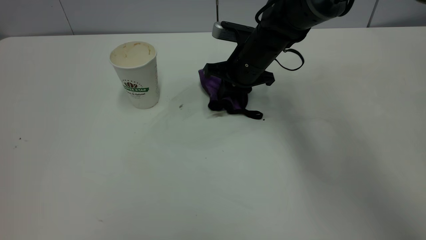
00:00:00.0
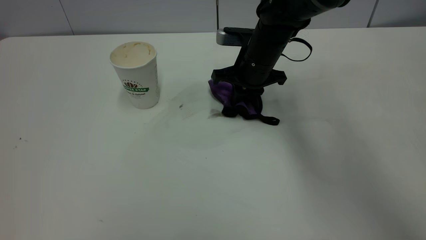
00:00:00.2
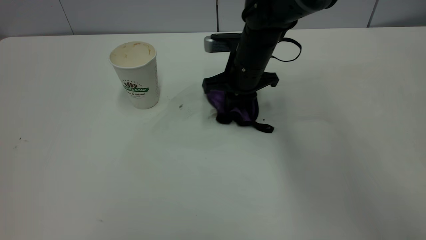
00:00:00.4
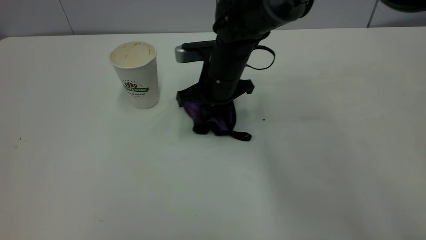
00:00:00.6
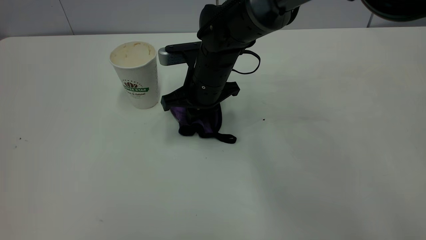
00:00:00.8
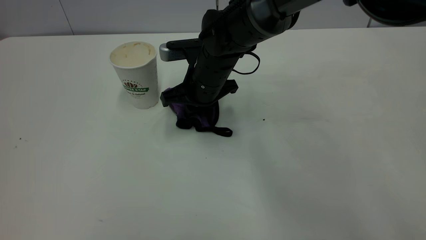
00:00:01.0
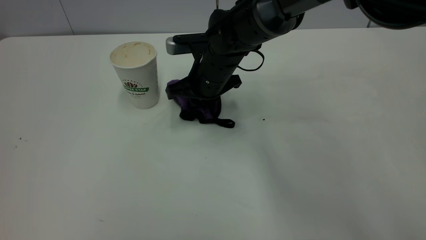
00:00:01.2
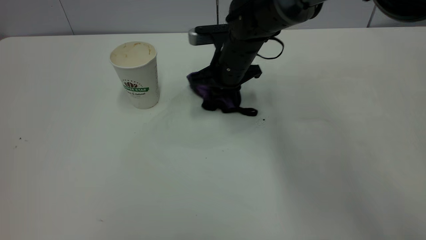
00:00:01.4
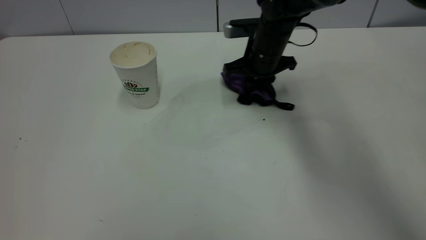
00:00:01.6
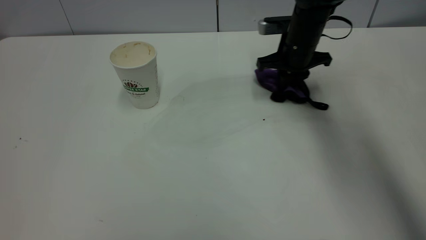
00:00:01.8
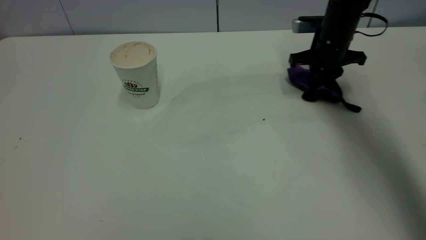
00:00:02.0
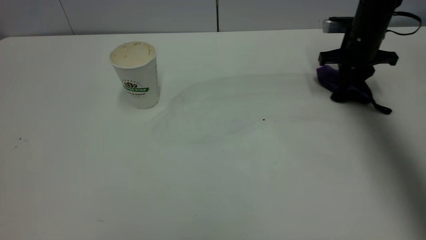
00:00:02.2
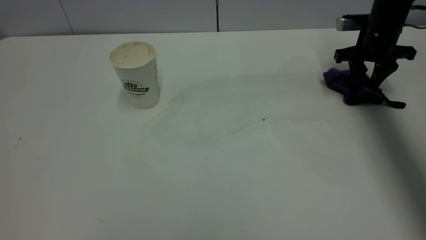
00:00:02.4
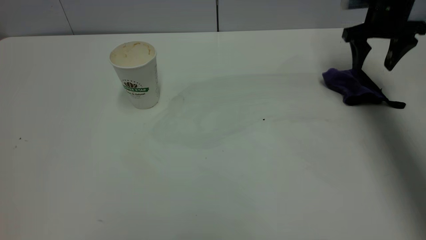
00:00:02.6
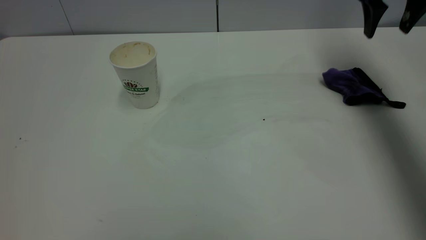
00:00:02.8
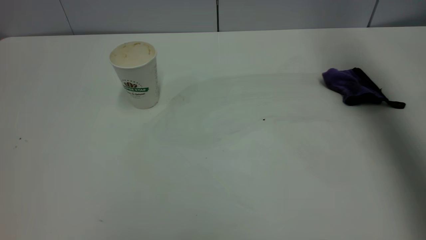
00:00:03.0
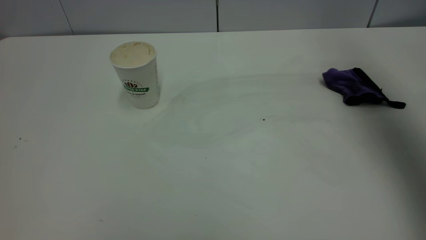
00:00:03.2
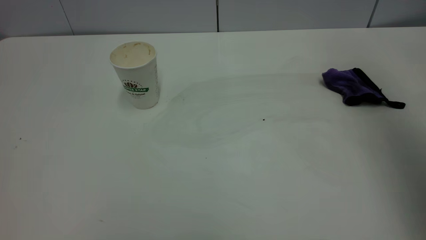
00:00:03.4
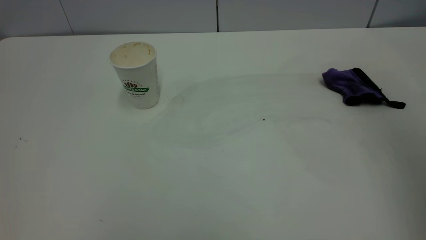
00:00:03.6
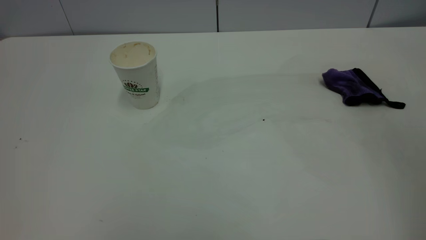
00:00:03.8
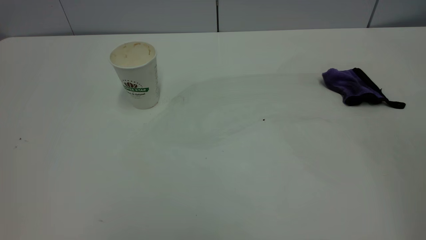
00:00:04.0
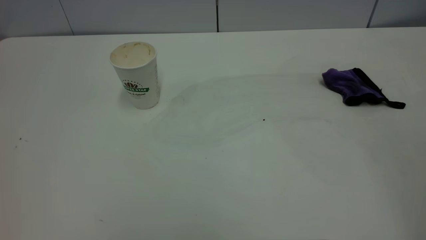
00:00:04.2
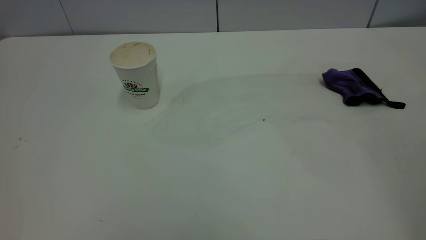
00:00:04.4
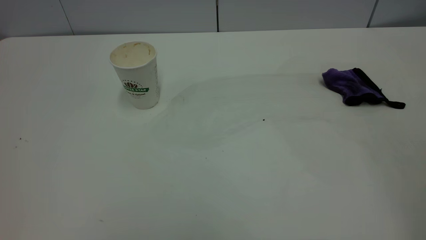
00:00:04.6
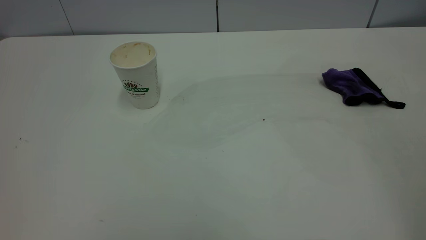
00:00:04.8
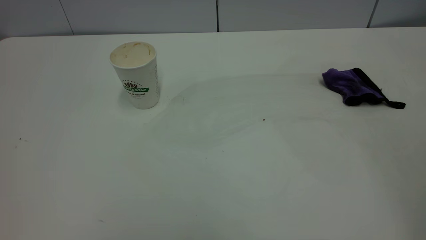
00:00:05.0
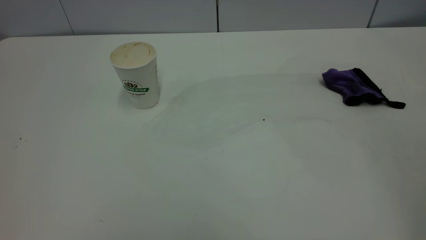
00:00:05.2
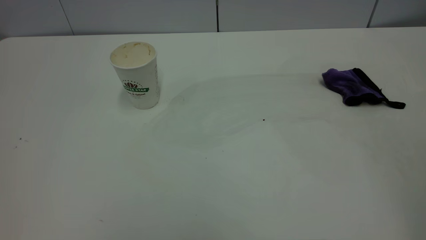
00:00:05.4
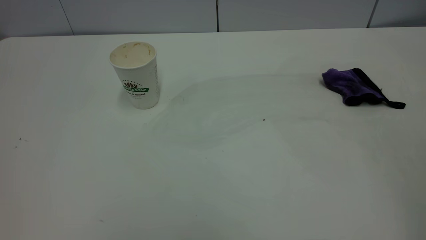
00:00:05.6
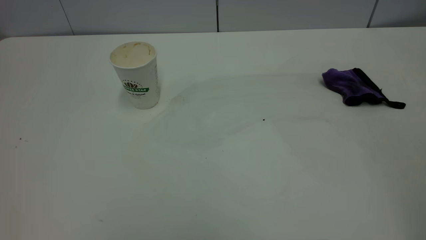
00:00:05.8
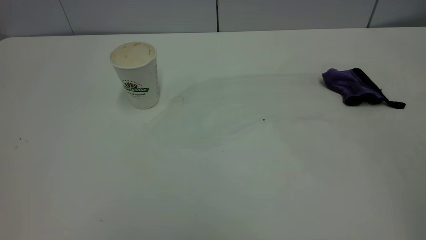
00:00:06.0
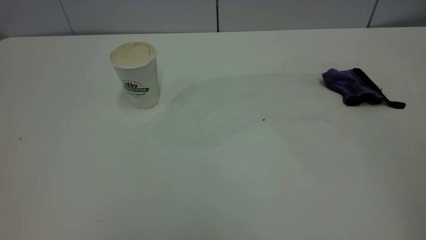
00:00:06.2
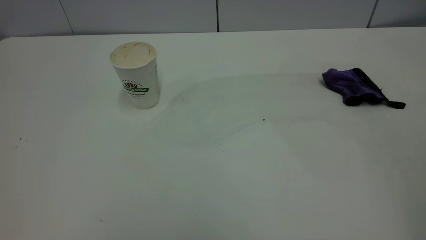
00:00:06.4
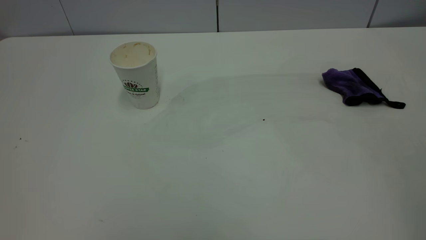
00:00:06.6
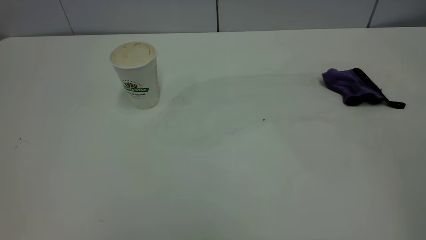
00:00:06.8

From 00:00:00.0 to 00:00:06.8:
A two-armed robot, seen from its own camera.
Task of the whole recording: the left gripper pick up the fallen cup and place it upright, the right gripper grasp the purple rag and wipe the coffee stain on the table, the right gripper put the purple rag back in its original position.
Step, from 00:00:00.0 to 00:00:02.6: Wipe the stains off the table with a rag.
From 00:00:00.0 to 00:00:01.4: The right gripper reaches some 10 cm to the left, then returns.
From 00:00:01.4 to 00:00:02.8: The right gripper goes approximately 30 cm to the right and upward, and opens its fingers.
From 00:00:02.8 to 00:00:04.0: The right gripper goes about 50 cm backward.
From 00:00:05.4 to 00:00:06.8: The two grippers keep their place.
